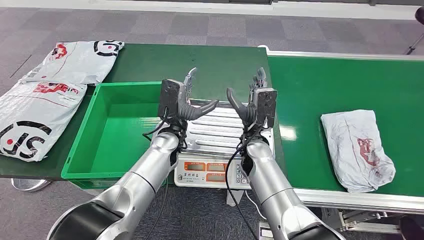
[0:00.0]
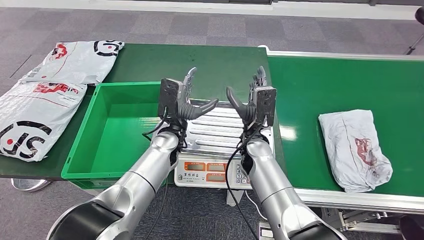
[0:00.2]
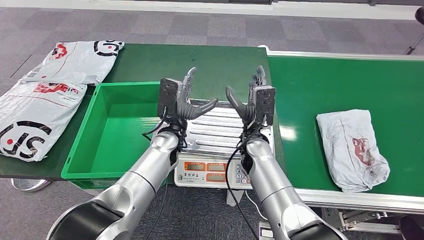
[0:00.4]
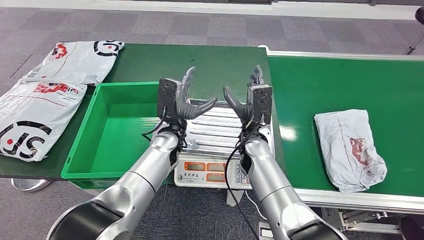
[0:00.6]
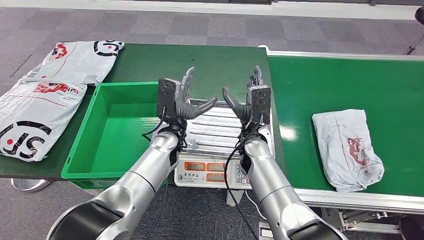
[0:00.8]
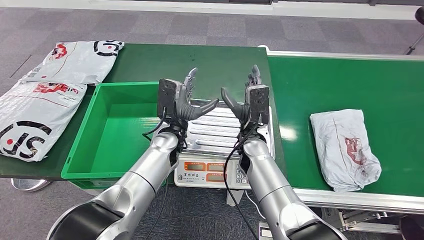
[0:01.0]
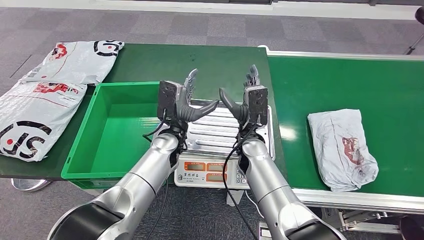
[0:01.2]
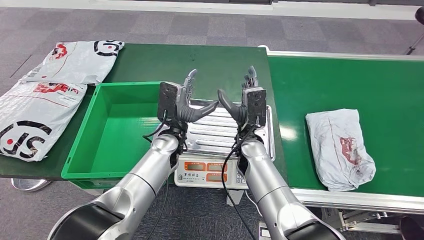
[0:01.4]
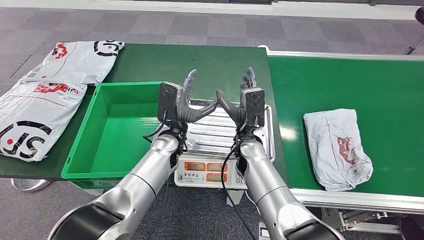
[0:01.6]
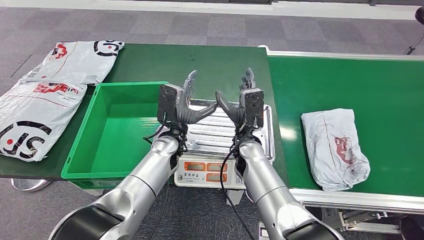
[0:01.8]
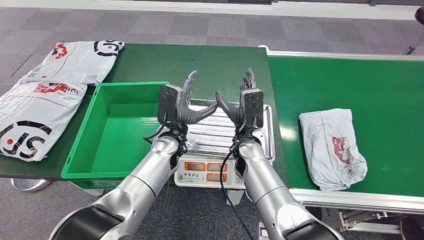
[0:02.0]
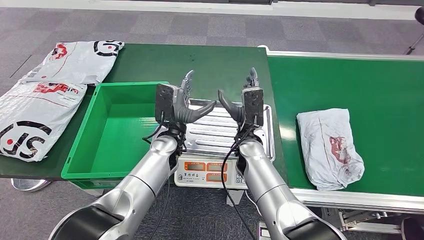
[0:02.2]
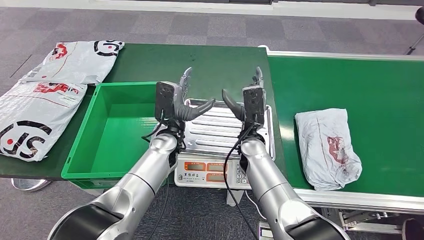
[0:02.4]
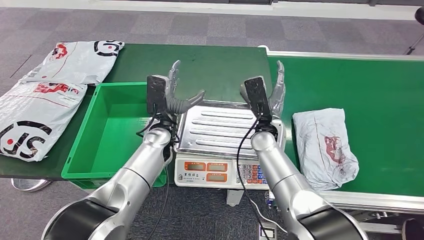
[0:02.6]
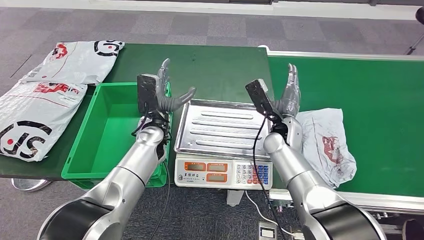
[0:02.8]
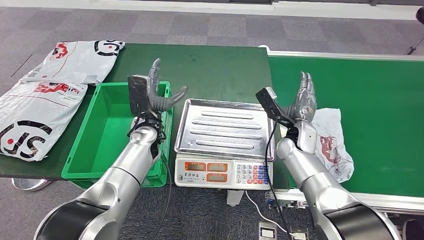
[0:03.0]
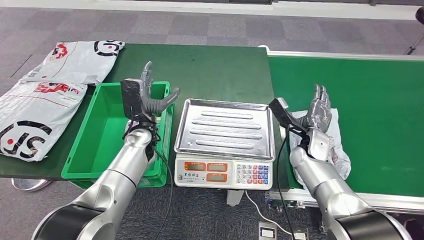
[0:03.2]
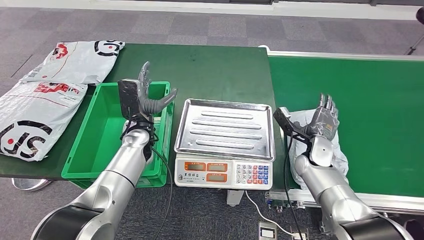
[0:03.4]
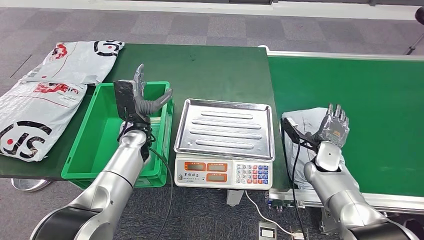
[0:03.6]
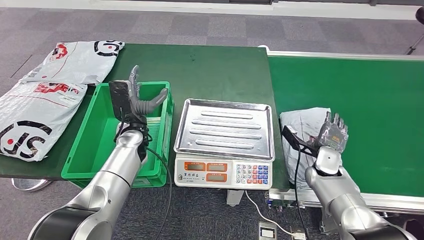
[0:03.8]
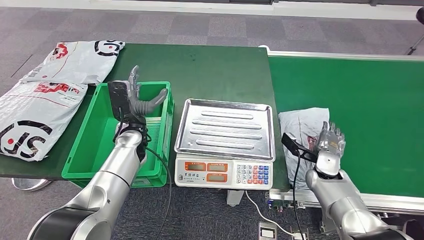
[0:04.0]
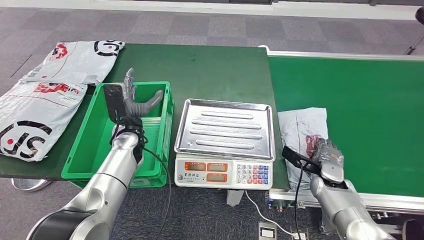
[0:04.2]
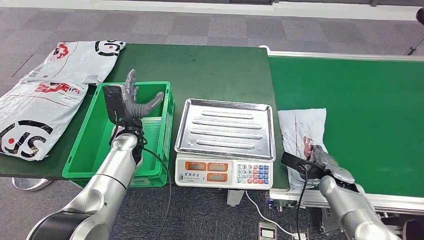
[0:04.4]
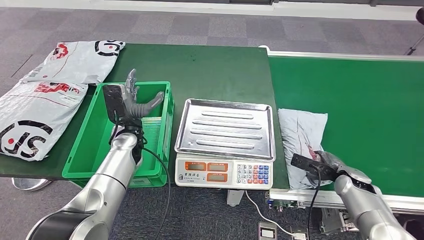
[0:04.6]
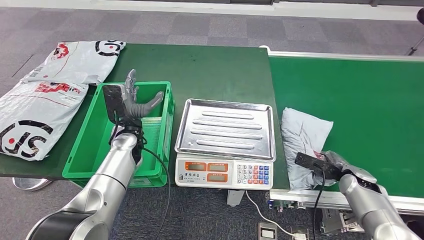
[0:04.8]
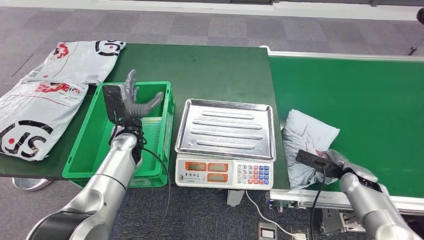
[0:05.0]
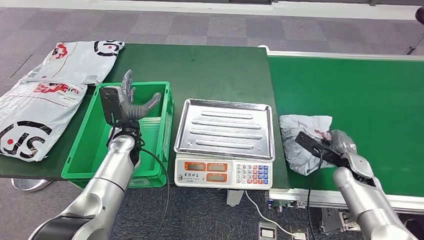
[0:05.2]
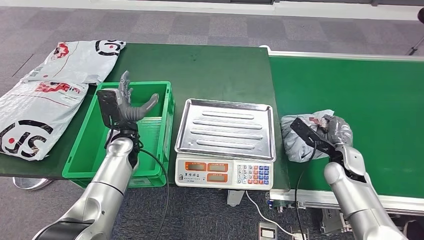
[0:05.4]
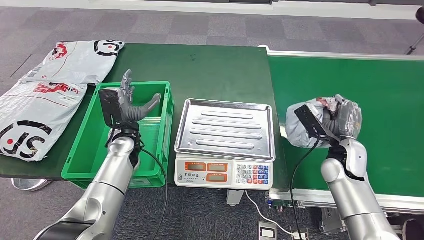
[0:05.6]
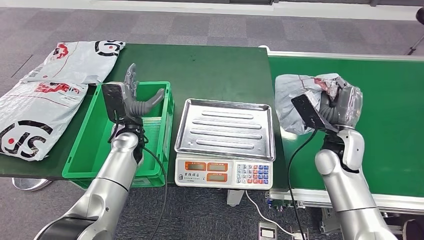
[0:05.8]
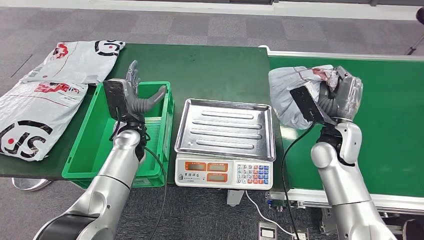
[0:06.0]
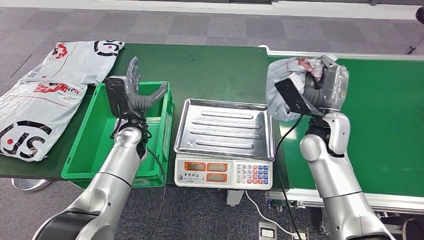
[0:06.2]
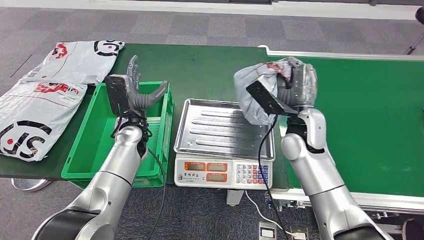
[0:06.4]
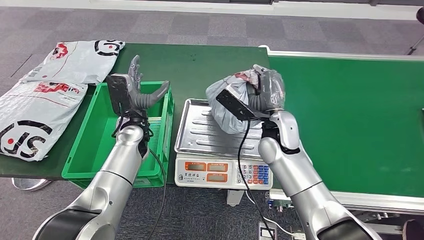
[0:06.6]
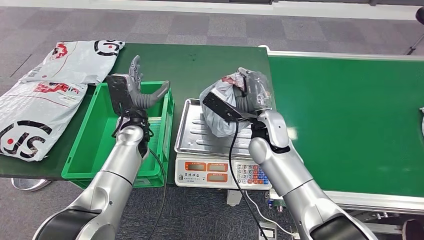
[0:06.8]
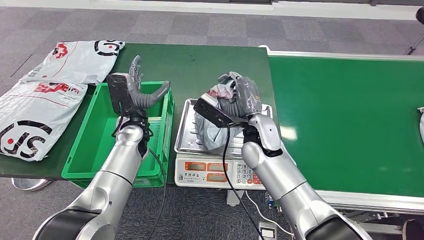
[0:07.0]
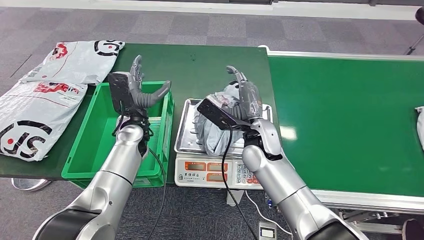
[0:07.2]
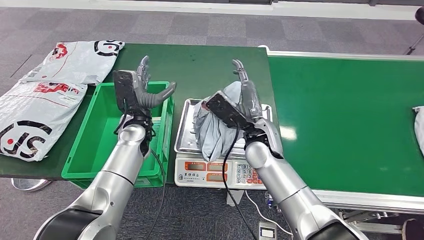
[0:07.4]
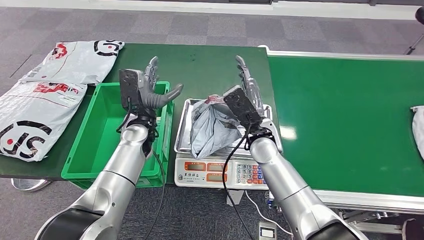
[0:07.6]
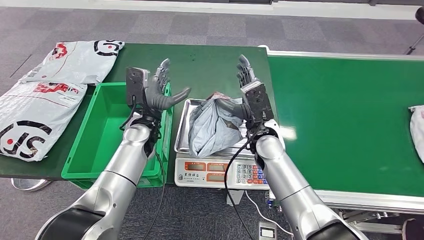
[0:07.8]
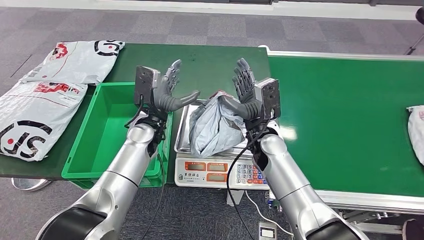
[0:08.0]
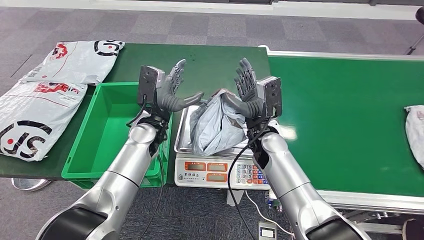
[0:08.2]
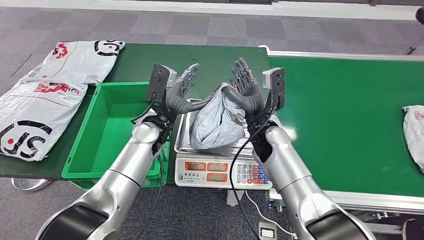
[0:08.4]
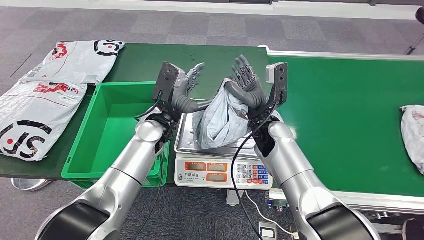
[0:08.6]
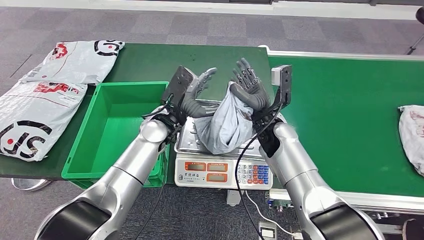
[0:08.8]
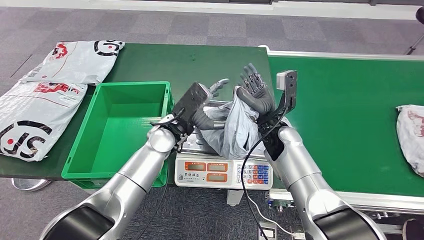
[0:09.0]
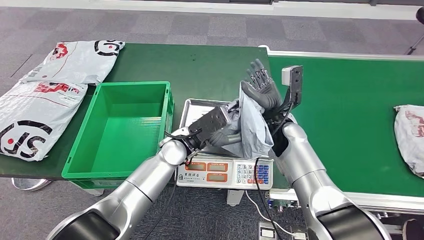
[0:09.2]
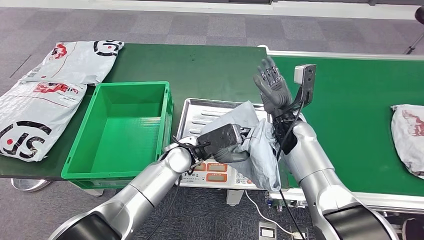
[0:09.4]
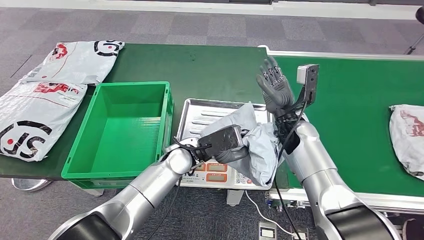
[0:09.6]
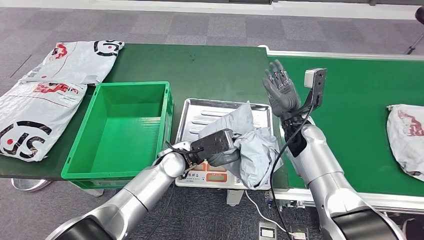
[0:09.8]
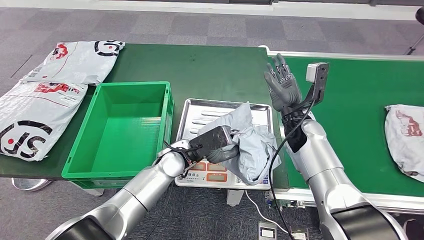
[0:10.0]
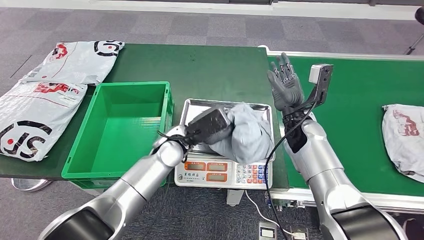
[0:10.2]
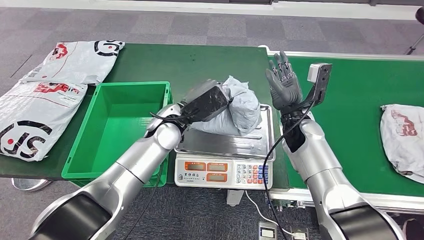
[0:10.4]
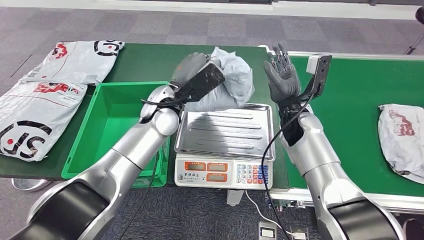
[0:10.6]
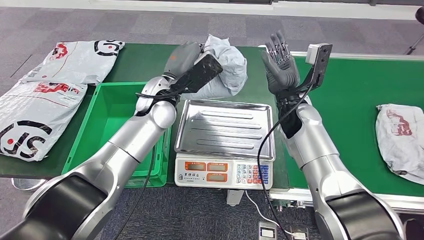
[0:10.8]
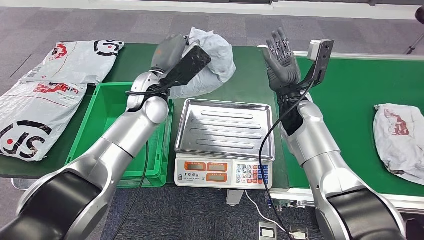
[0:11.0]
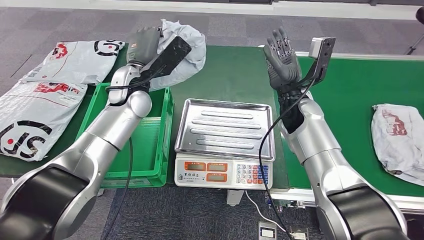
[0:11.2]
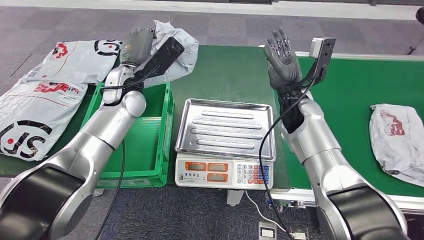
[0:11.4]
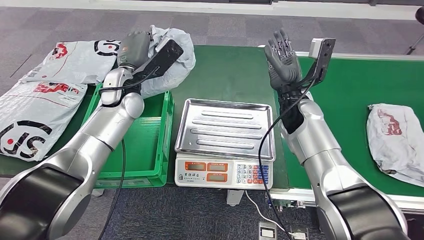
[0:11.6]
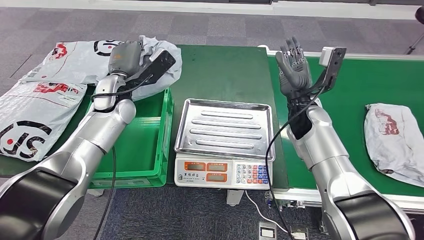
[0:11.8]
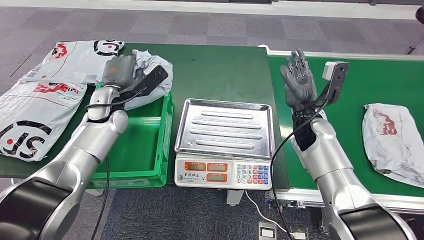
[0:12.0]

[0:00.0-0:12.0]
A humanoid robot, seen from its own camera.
Step, 0:00.0 to 0:05.8: Take the parcel off the conveyor belt.
Step, 0:06.0 to 0:07.8: Place the parcel onto the inbound machine.
Step, 0:08.0 to 0:10.8: Pick up the parcel from the inbound machine.
0:03.0 to 0:04.4: The left hand heads to the left, covering approximately 5 cm; the right hand travels to the right, downward and backward by some 20 cm.
0:04.4 to 0:06.0: The right hand heads upward and to the left, covering some 20 cm.

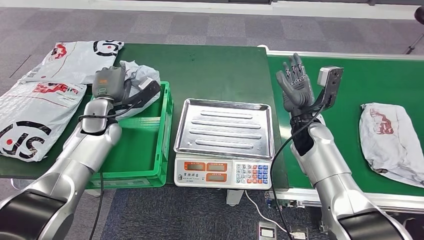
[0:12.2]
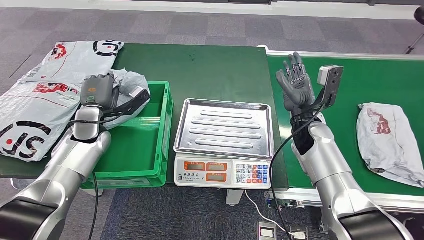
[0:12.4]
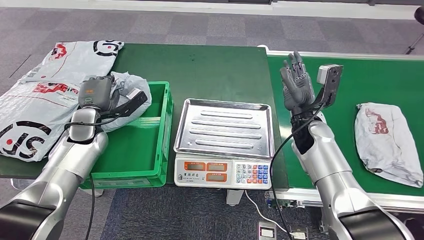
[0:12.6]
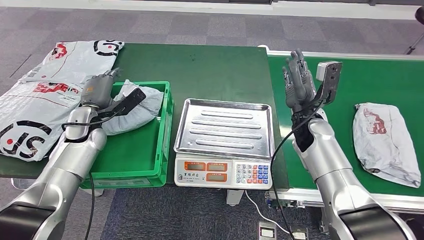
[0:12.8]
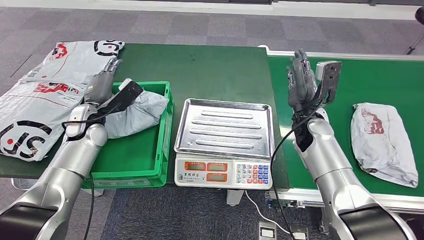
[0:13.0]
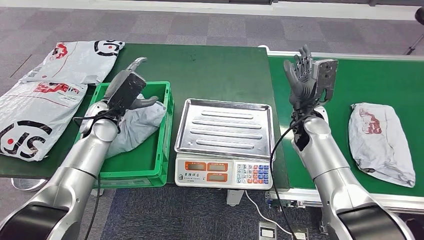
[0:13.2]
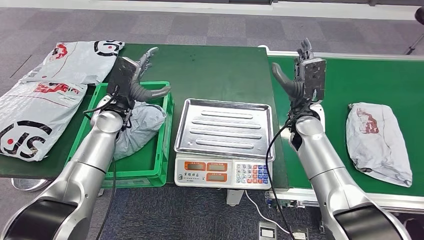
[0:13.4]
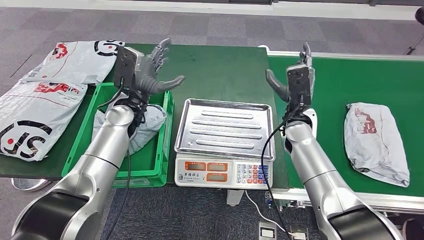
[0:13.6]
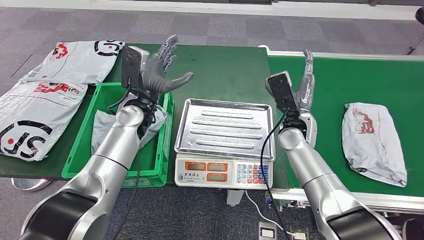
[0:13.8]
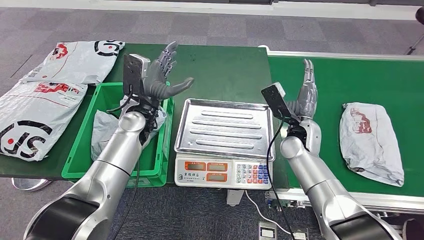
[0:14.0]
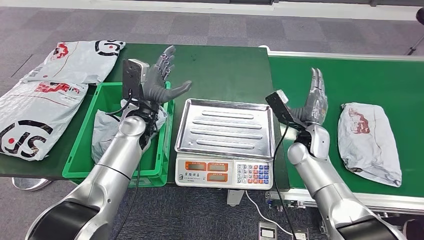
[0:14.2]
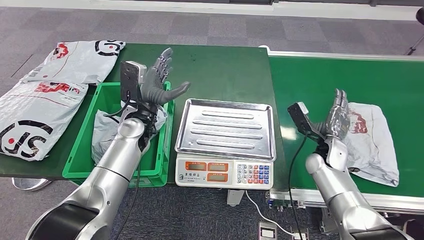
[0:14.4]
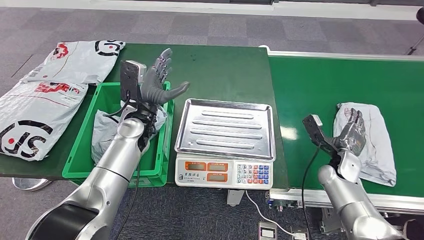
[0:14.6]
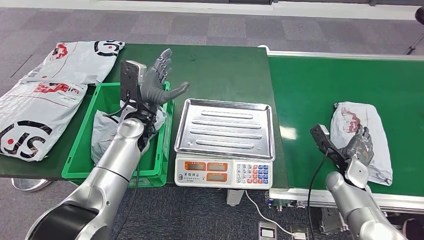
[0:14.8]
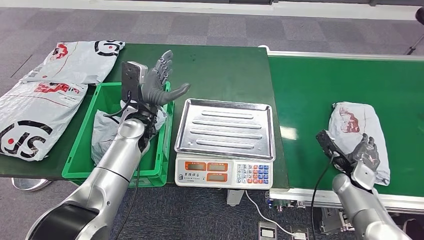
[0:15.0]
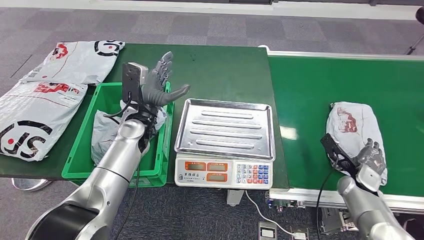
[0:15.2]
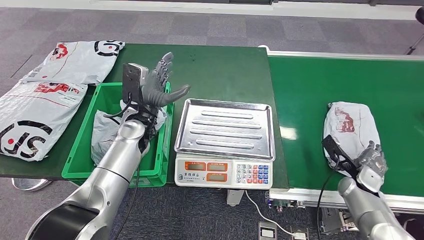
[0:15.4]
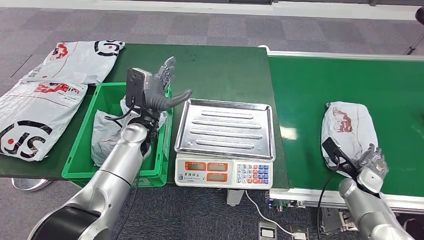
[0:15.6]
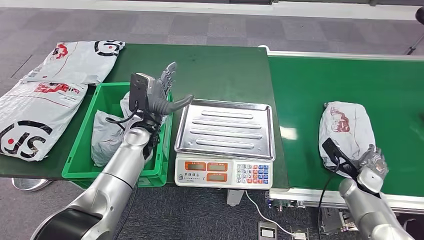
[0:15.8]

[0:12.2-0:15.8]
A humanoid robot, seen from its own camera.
Step, 0:12.2 to 0:15.6: Put the parcel inside the courier box.
